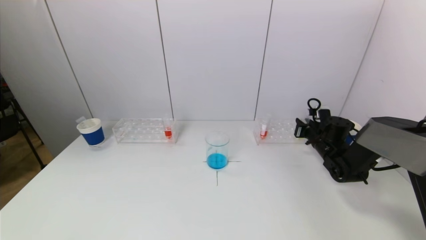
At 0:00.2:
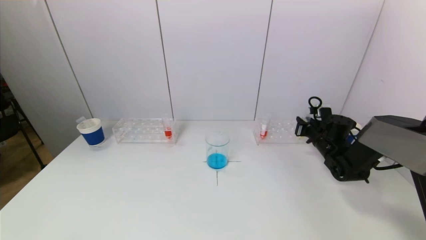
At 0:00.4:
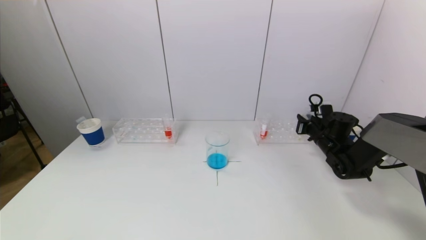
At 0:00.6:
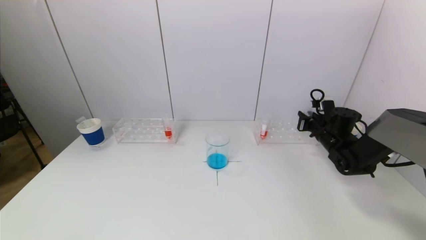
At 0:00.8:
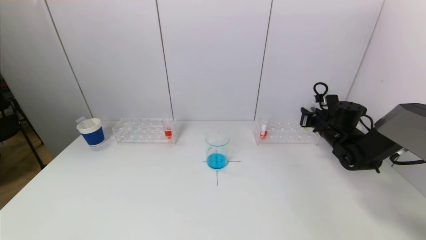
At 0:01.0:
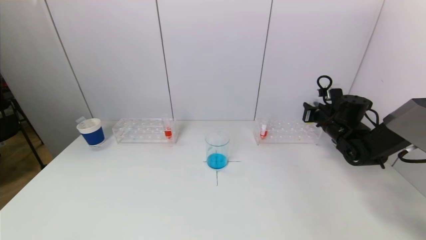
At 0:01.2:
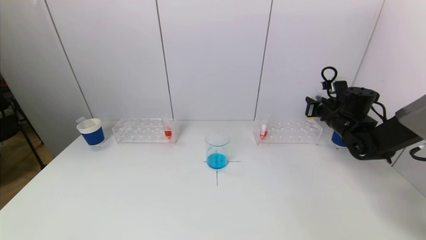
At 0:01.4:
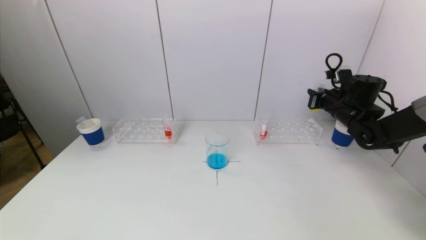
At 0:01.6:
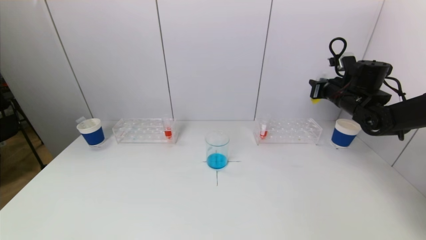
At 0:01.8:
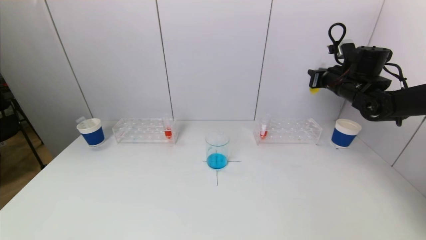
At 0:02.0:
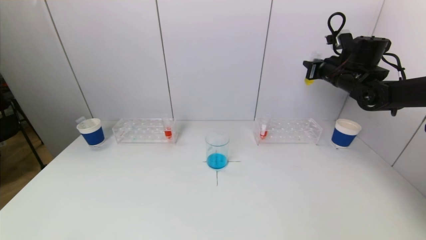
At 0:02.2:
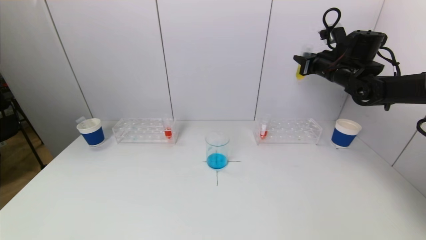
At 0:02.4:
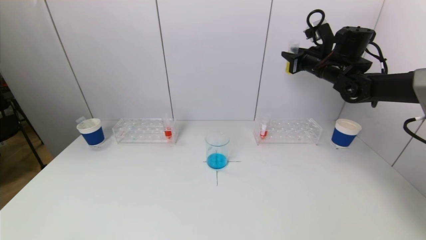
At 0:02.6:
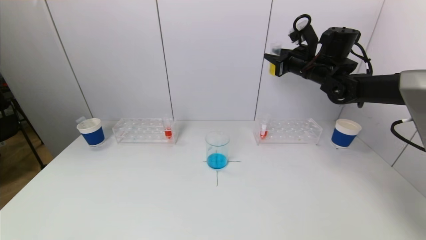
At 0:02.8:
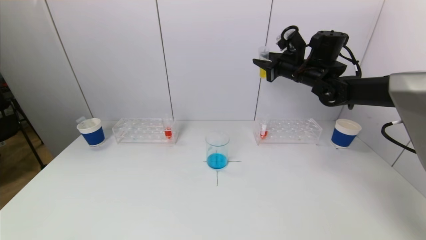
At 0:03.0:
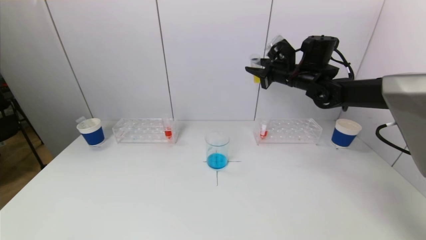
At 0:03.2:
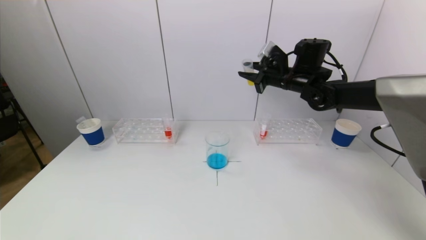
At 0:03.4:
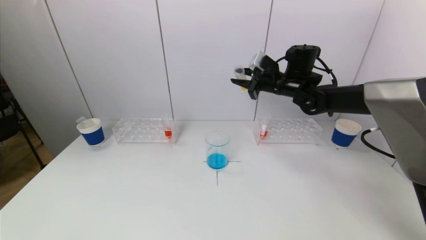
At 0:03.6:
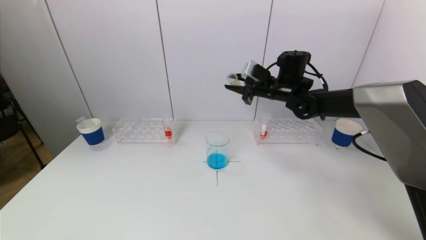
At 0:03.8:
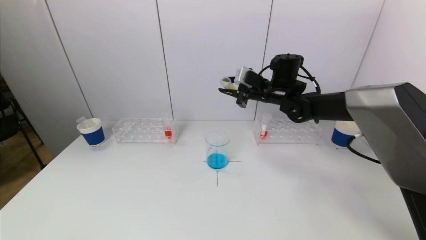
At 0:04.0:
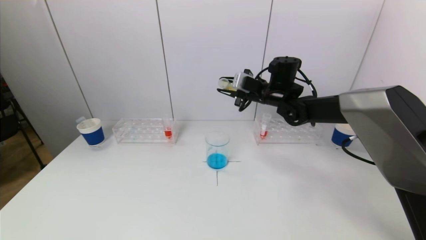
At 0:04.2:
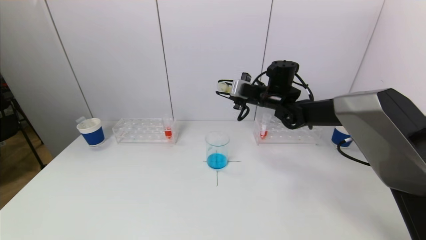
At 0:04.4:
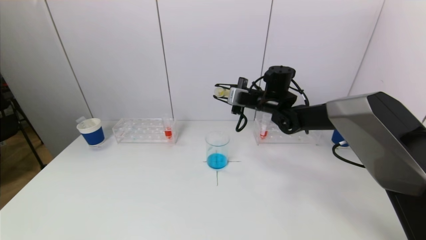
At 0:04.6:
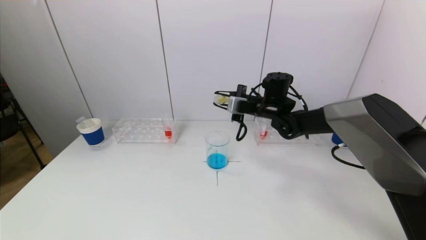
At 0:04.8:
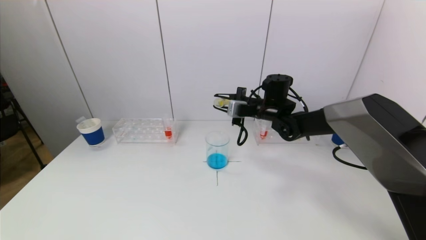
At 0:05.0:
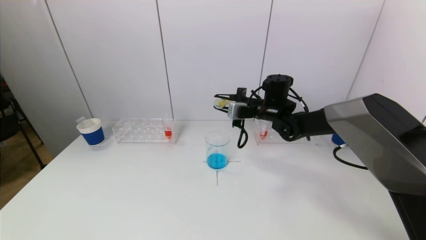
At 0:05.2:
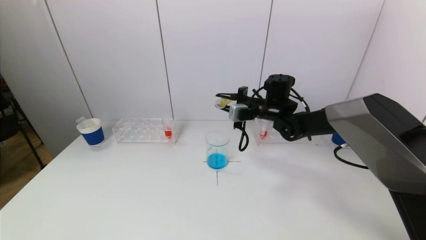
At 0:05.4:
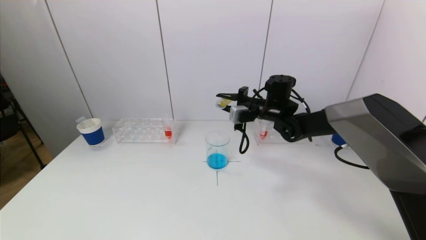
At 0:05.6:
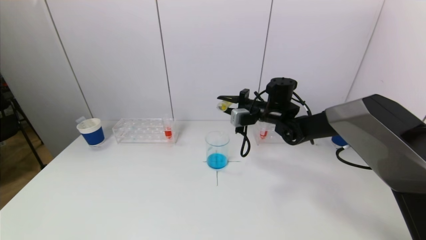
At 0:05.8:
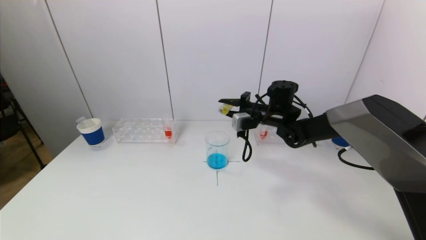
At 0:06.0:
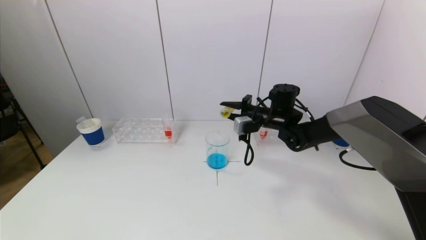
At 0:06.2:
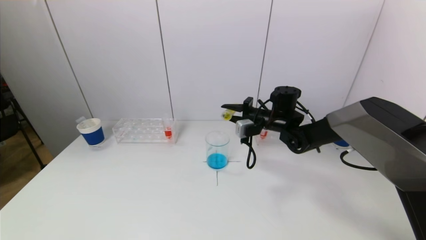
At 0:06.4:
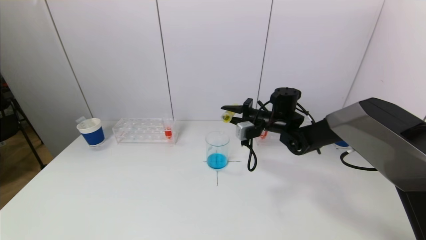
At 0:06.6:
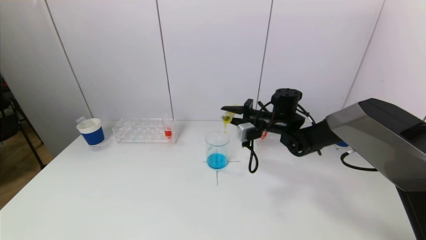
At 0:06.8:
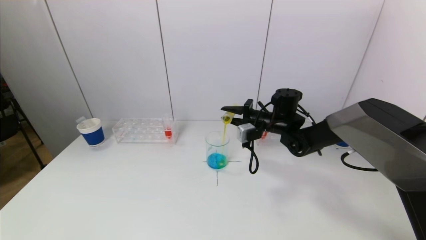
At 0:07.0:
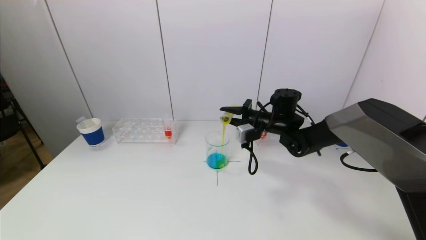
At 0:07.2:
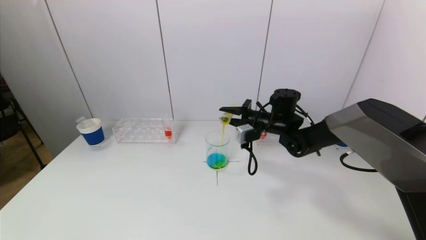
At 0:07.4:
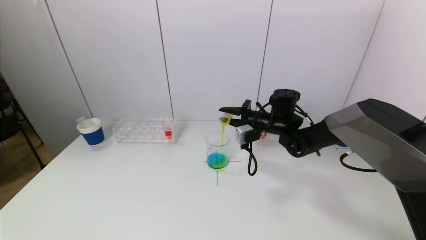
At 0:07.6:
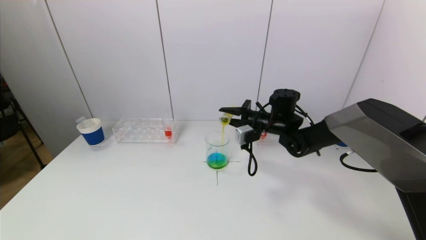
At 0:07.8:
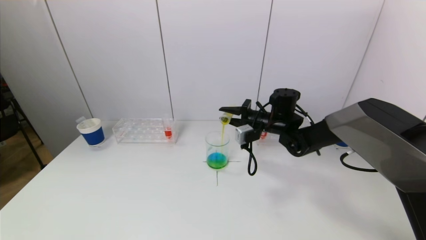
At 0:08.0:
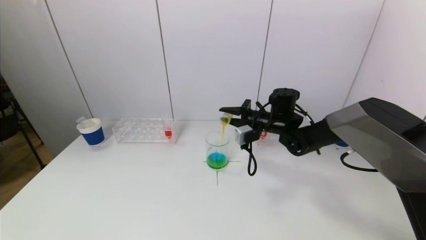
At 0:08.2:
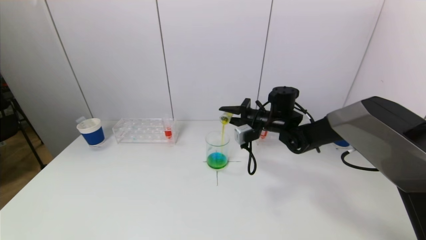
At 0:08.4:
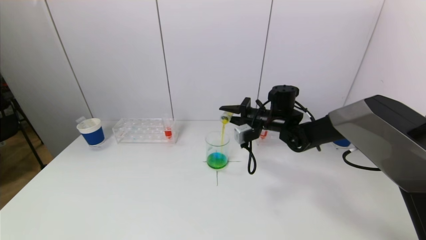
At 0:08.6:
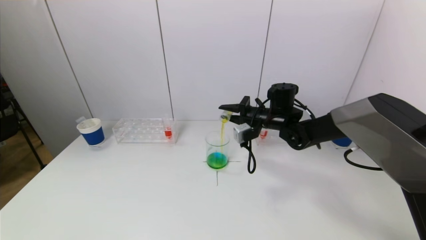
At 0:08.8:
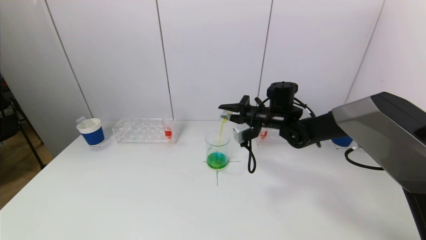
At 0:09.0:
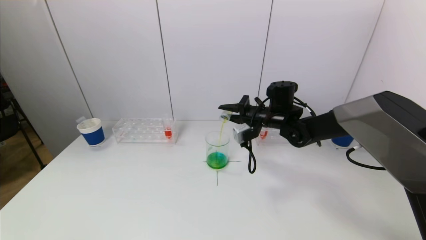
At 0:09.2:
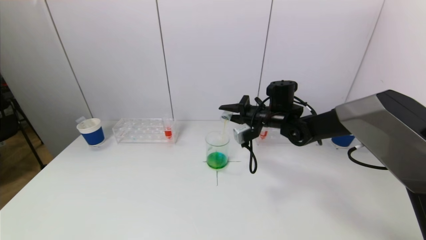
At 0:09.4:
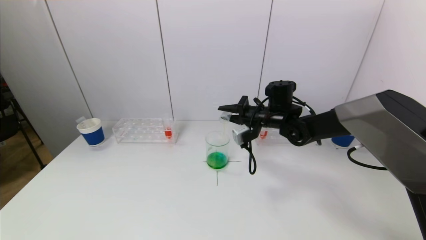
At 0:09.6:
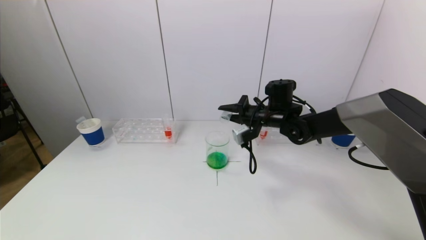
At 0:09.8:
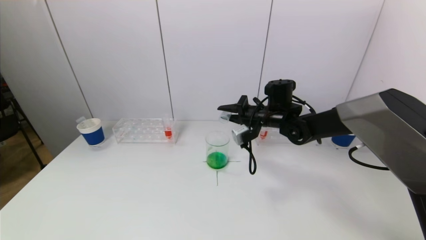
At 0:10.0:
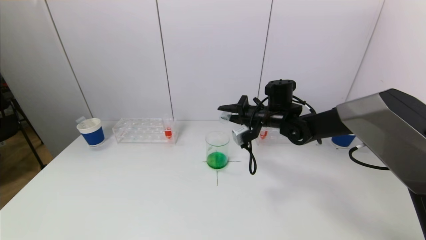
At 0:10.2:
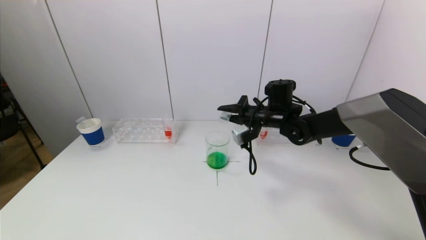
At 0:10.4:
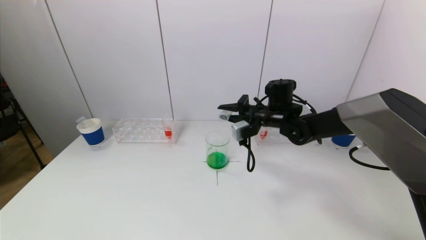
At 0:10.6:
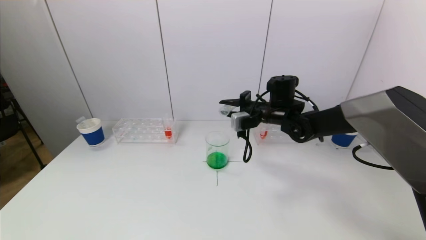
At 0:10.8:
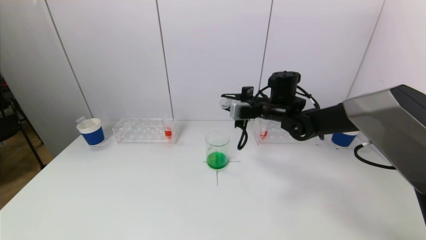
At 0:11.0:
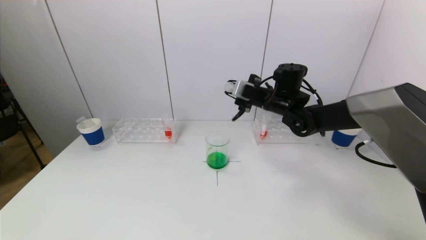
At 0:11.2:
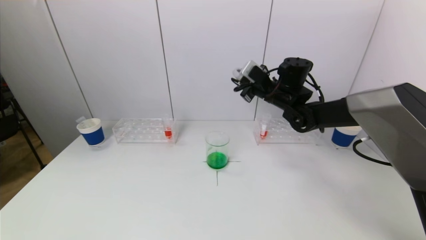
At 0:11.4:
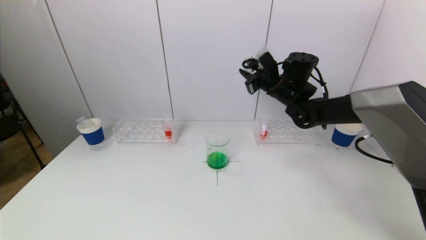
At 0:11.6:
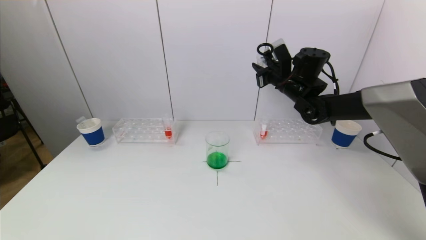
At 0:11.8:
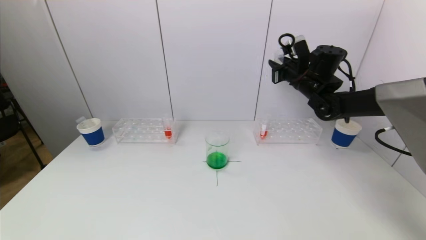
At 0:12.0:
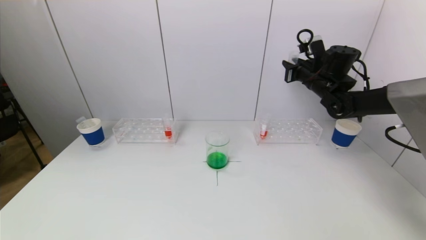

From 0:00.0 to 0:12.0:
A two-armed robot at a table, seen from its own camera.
Task of the whole recording: pick up a test tube with pigment on left test tube rack and a test tube with pigment on right test tube rack by grippers and pour them into the beaker.
Step, from 0:00.0 to 0:09.4: Pour the yellow reagent into the graduated cylinder with the right gripper.
From 0:00.0 to 0:01.6: The right gripper is displaced upward by some 15 cm.
From 0:01.6 to 0:03.0: The right gripper travels to the left by approximately 10 cm.
From 0:03.0 to 0:04.4: The right gripper moves to the left and downward, roughly 10 cm.
From 0:04.4 to 0:06.0: The right gripper changes place by about 5 cm.
From 0:06.0 to 0:09.0: There are only small adjustments of the grippers.
From 0:09.0 to 0:10.4: The grippers make only small movements.
From 0:10.4 to 0:12.0: The right gripper heads to the right and upward, covering roughly 15 cm.

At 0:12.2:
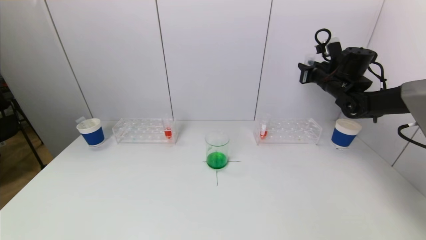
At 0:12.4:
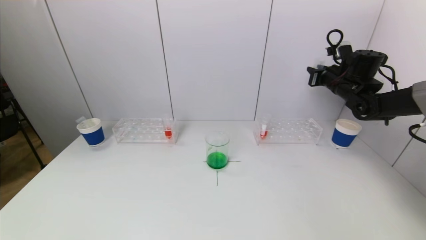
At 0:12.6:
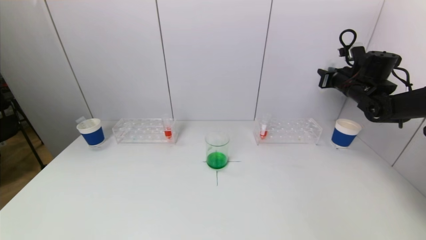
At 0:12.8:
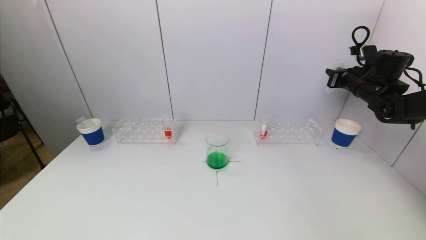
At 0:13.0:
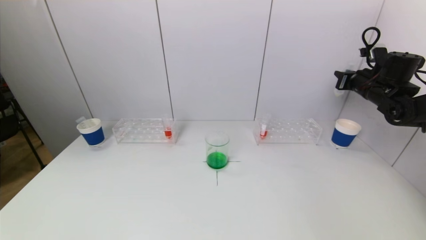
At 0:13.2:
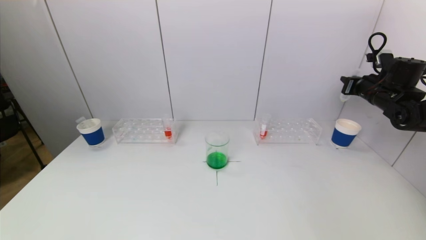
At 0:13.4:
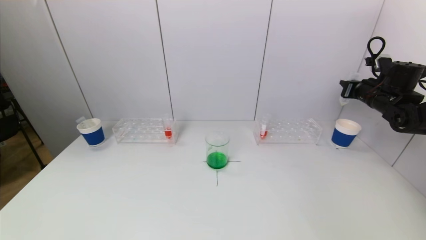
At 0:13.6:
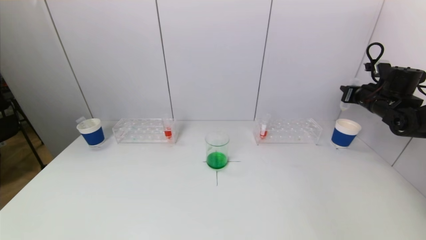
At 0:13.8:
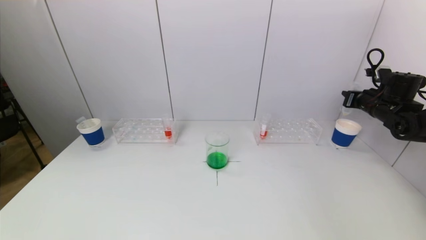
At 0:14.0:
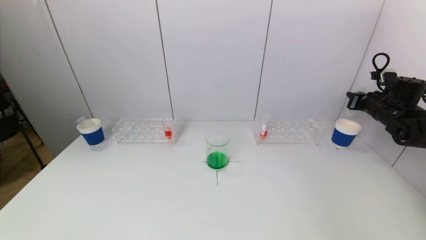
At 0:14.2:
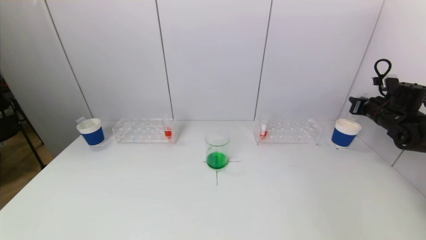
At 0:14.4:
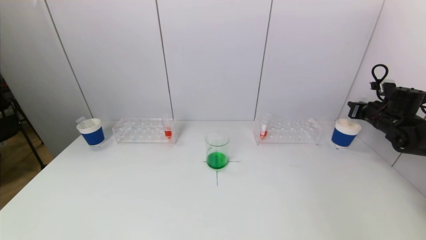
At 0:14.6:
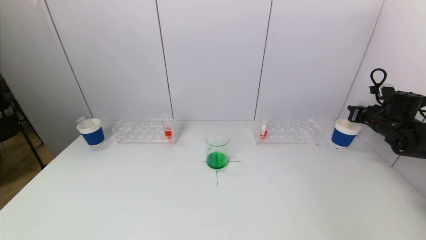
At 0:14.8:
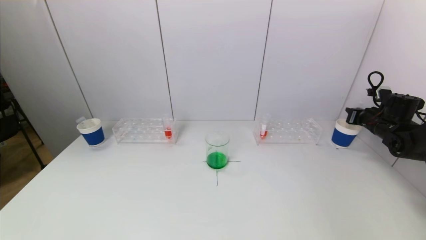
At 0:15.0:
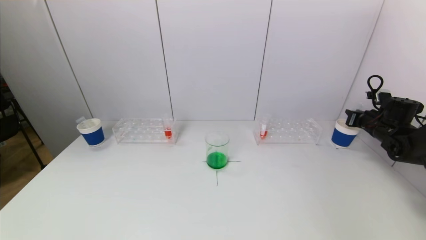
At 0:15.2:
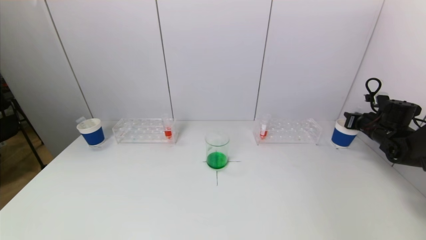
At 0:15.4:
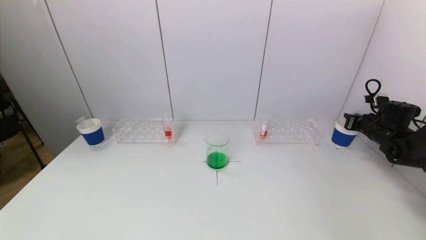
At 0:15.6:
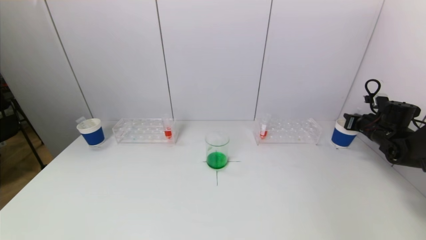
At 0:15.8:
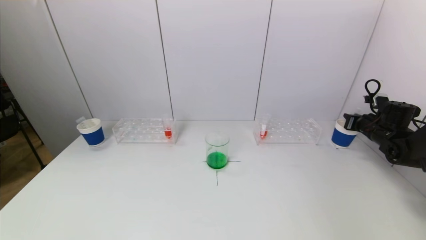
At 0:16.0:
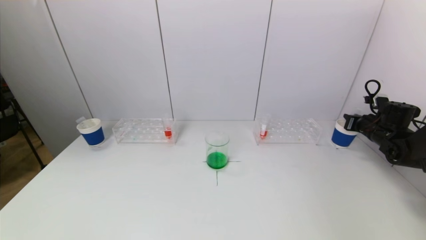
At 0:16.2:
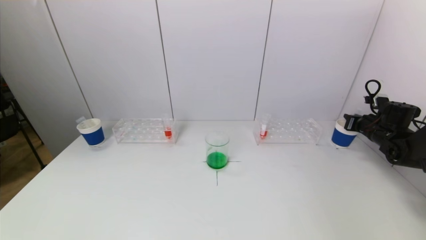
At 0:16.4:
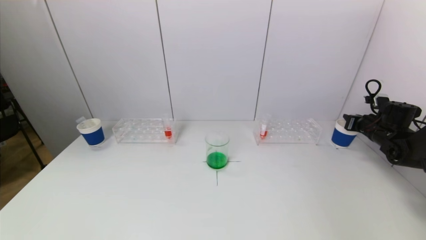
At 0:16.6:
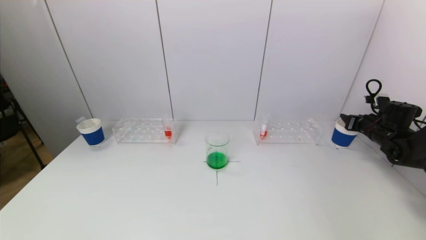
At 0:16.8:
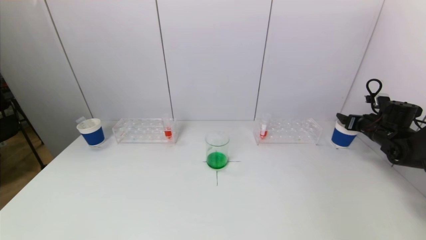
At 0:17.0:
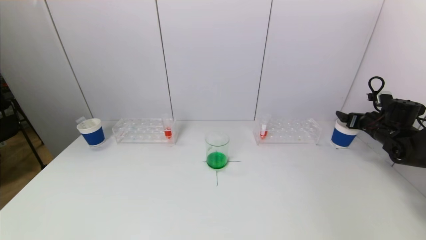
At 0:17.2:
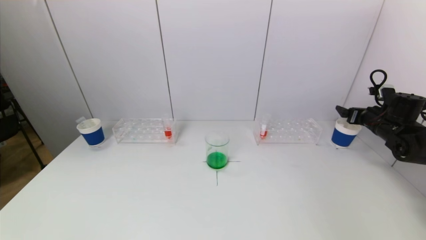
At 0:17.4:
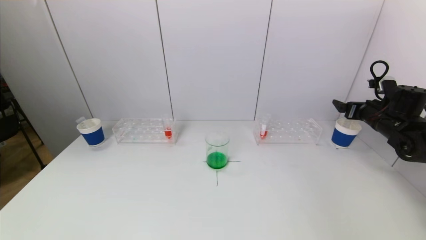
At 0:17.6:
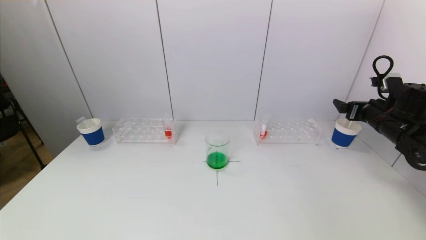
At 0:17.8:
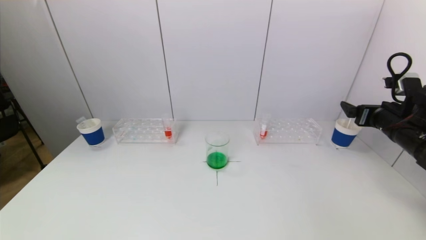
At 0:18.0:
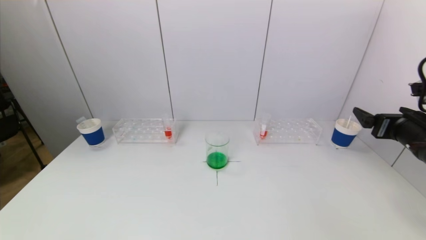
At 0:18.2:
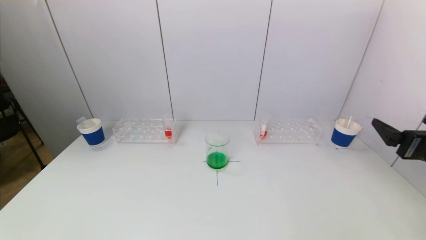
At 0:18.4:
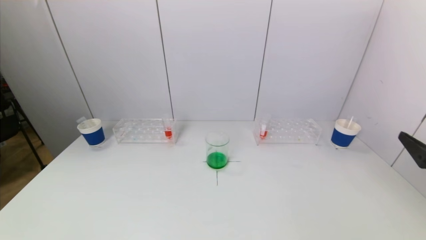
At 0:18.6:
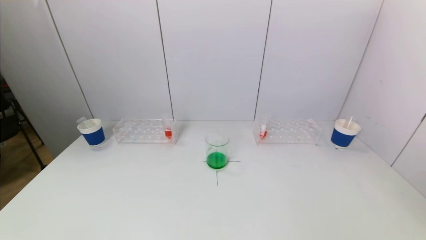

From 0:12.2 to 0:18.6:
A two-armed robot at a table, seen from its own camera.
Task of the whole recording: pick up a test tube with pigment on left test tube rack and a test tube with pigment on right test tube rack by grippers and pour them into the beaker.
Step, from 0:12.2 to 0:17.4: Place the test tube into the paper cup with the right gripper.
From 0:12.2 to 0:13.8: The right gripper is displaced to the right, backward and downward by approximately 15 cm.
From 0:13.8 to 0:15.4: The right gripper heads downward, covering some 5 cm.
From 0:15.4 to 0:17.0: The right gripper opens.
From 0:17.0 to 0:18.6: The right gripper goes some 35 cm backward.
